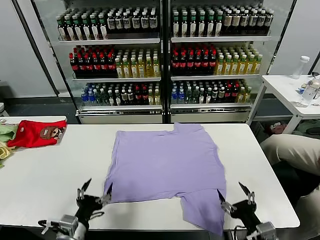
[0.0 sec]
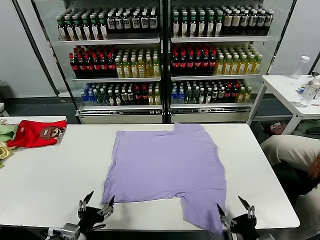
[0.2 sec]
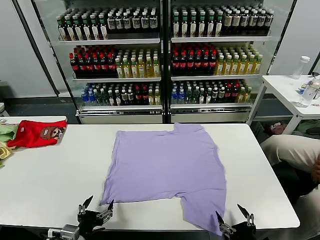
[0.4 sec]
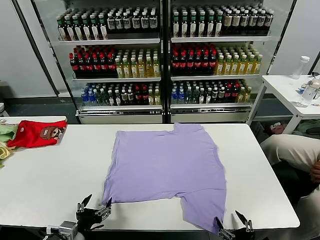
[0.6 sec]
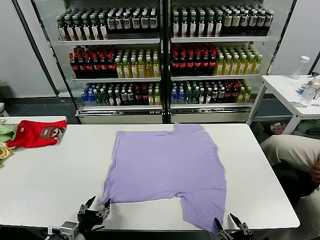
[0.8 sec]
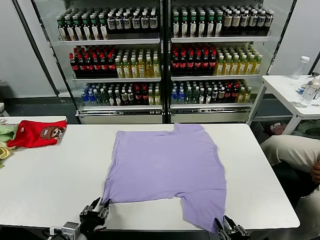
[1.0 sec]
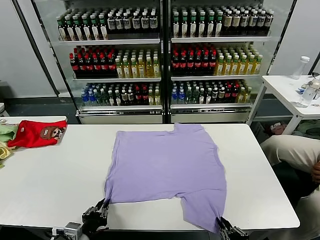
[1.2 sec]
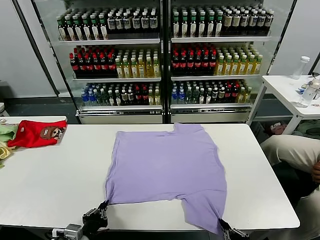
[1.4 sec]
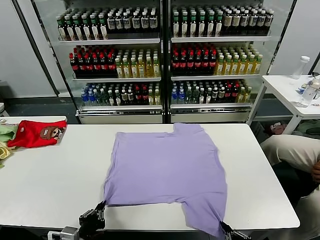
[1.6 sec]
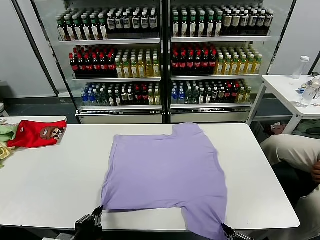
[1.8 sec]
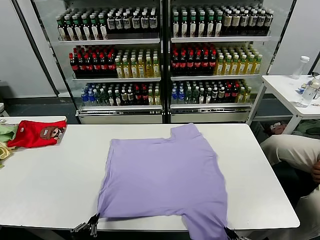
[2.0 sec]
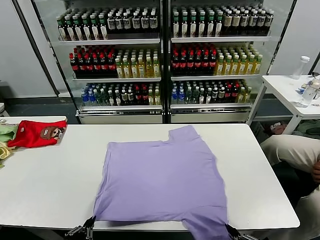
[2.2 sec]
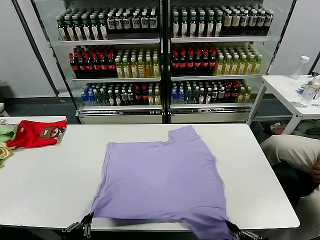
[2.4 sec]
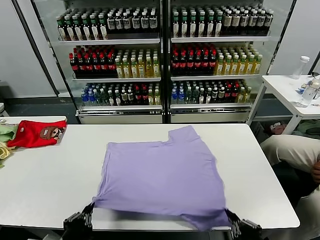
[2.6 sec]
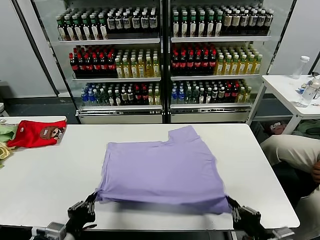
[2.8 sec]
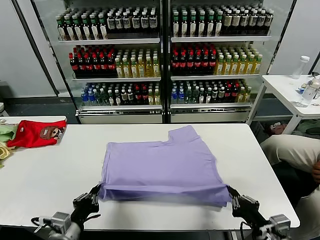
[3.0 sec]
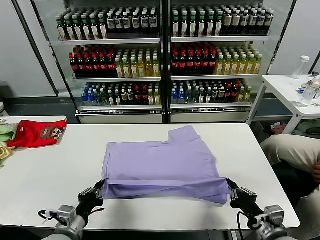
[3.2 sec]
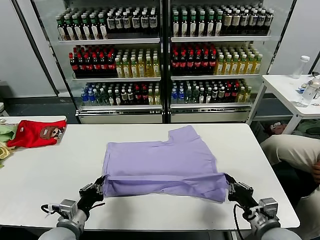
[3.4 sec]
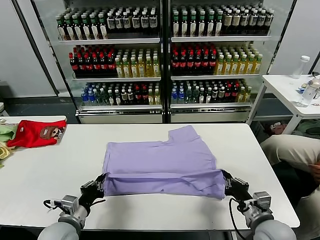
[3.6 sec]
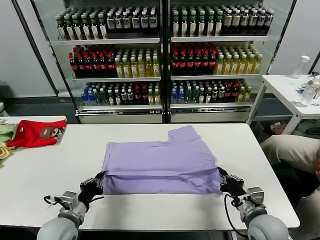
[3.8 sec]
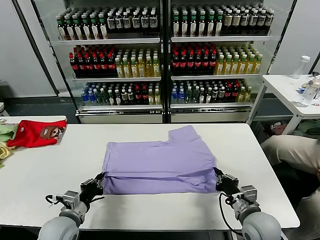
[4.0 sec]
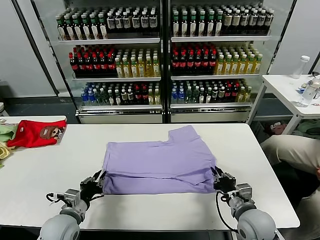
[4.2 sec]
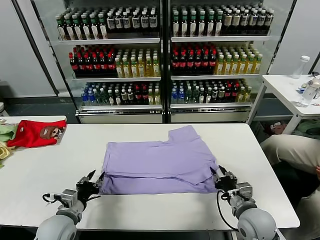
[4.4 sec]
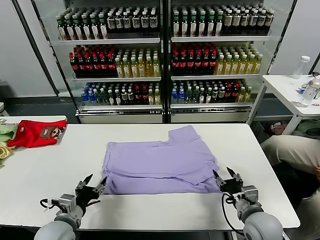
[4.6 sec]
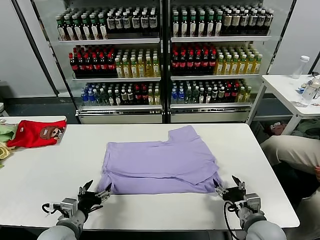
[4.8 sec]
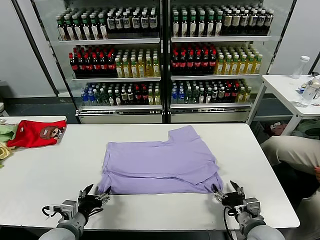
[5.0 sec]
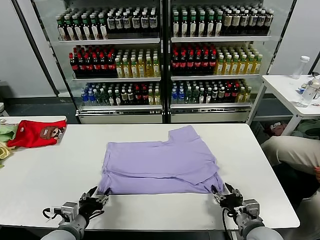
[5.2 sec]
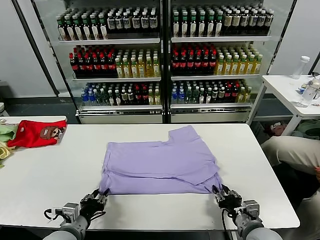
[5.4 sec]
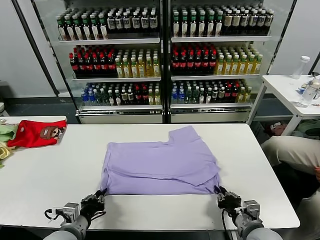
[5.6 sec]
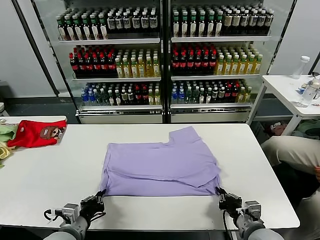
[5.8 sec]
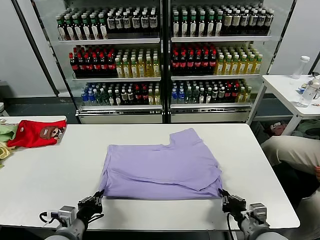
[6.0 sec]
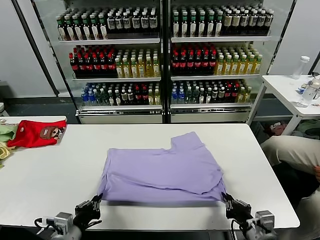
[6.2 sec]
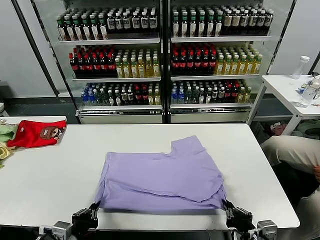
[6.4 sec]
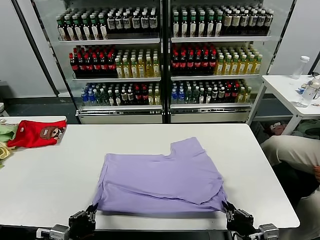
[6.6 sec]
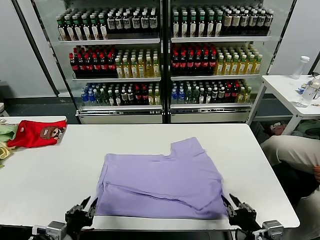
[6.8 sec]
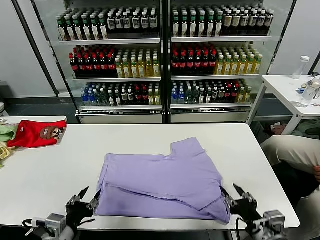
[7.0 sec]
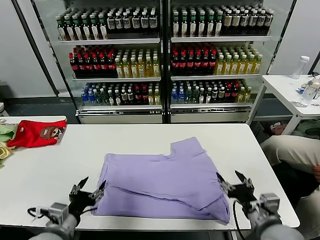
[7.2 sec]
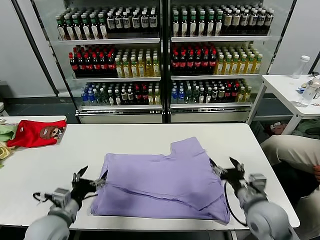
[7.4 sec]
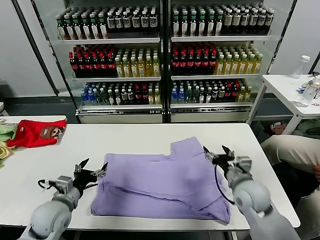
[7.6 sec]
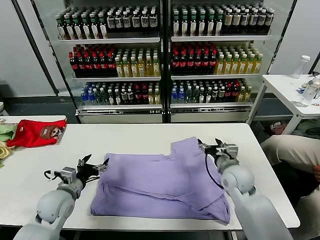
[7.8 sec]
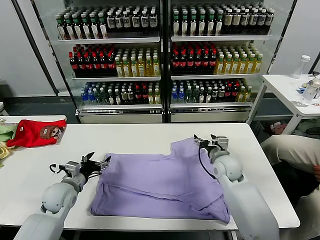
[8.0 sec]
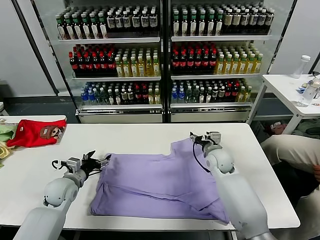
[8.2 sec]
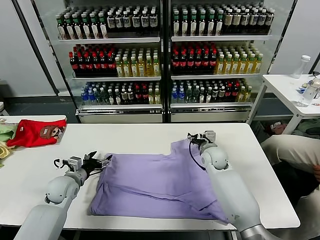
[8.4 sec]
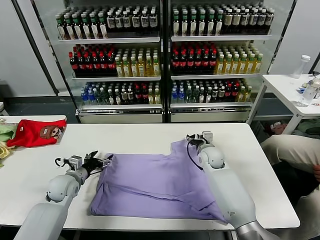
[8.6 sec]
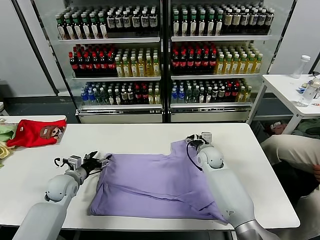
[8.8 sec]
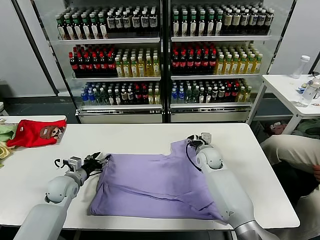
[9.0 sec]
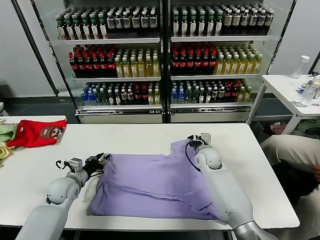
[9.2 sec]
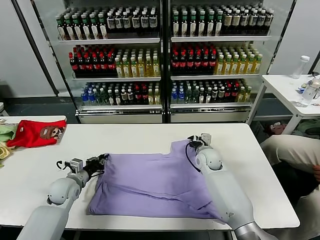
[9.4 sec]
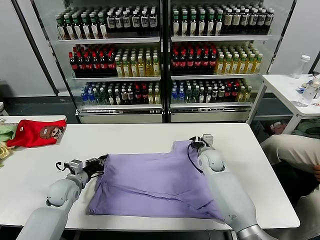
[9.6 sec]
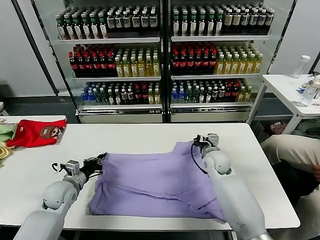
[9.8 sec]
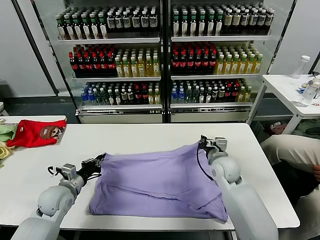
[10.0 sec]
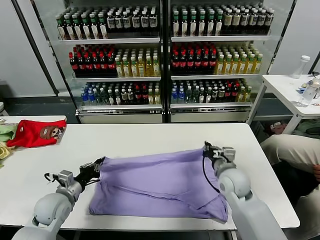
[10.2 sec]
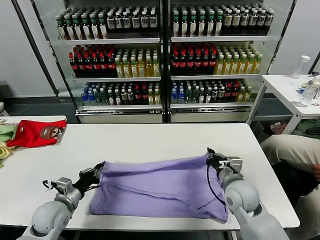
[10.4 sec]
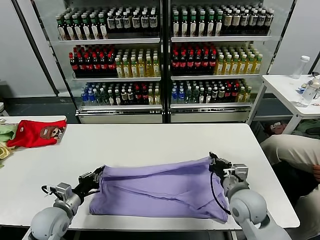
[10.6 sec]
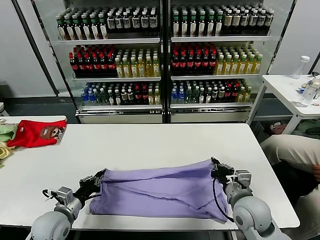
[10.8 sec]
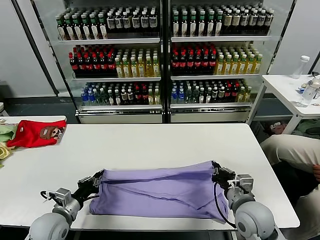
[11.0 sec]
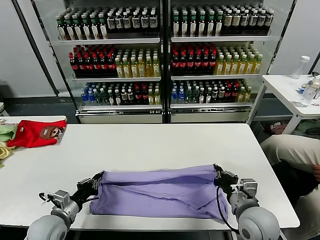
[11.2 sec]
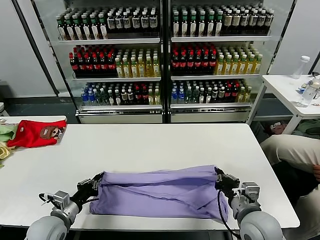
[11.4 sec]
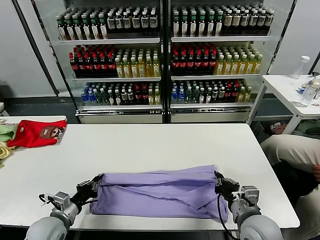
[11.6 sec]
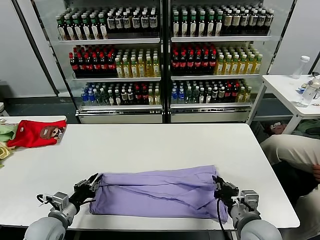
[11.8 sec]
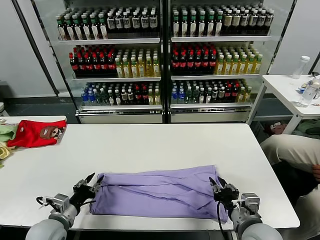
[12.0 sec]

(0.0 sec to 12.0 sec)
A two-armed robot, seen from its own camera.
Task of the whole recording: fold and organize the clothes.
Step, 0.0 sec - 1.2 sec: use both grippers simultaneously to clamp the lower edge of the clothing fabric.
Step, 1.6 sec - 4.6 sec: use both grippers to drag the lower edge of the fabric forward and fold it over the upper edge.
Step, 4.8 sec - 6.8 sec: Drag the clothes downward with both gripper.
Step, 7.0 sec - 9.4 sec: use both grippers simultaneously to clamp the upper edge of the clothing fabric.
1.6 sec - 3.0 sec: The left gripper moves approximately 5 cm. The right gripper moves forward, some 10 cm.
3.0 sec - 4.4 sec: The grippers both shift forward by some 10 cm. The right gripper opens; the left gripper opens its fingers.
4.4 sec - 6.0 sec: The two grippers go about 5 cm backward. The right gripper closes up. Meanwhile the left gripper closes its fingers.
6.0 sec - 7.6 sec: The right gripper moves forward, some 20 cm, and opens its fingers. Meanwhile the left gripper shifts roughly 10 cm forward, and opens its fingers.
7.6 sec - 9.0 sec: The left gripper heads forward, covering some 10 cm. The right gripper goes roughly 15 cm forward and to the left, and closes its fingers.
9.0 sec - 10.4 sec: The left gripper travels backward by roughly 10 cm, and closes its fingers; the right gripper heads backward, covering roughly 20 cm, and closes up.
10.4 sec - 12.0 sec: The left gripper heads backward, covering some 5 cm, and opens its fingers. Meanwhile the right gripper is displaced backward by roughly 10 cm, and opens up.

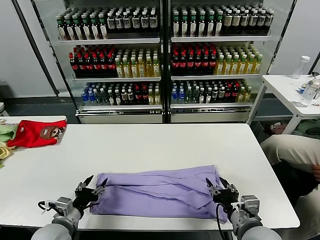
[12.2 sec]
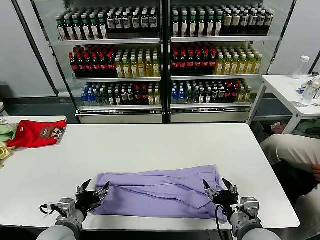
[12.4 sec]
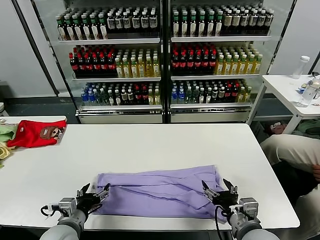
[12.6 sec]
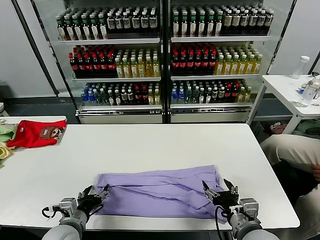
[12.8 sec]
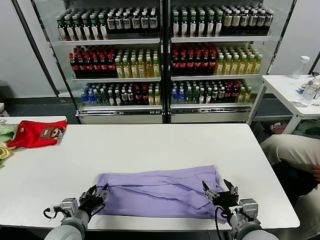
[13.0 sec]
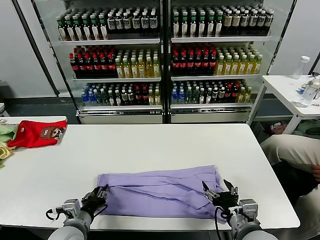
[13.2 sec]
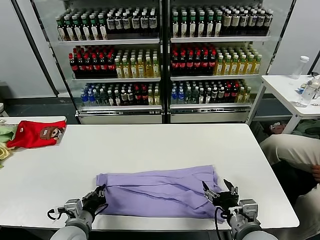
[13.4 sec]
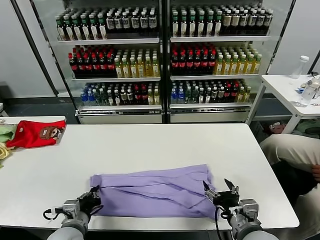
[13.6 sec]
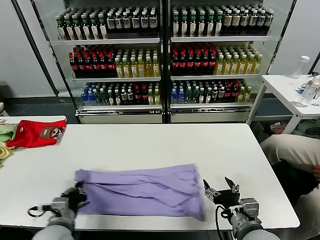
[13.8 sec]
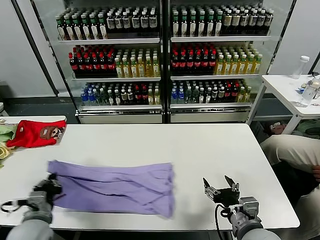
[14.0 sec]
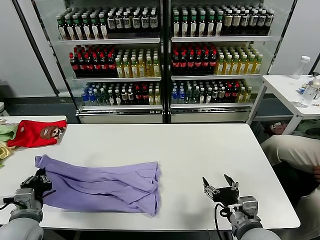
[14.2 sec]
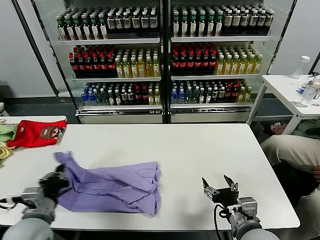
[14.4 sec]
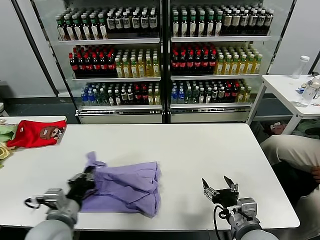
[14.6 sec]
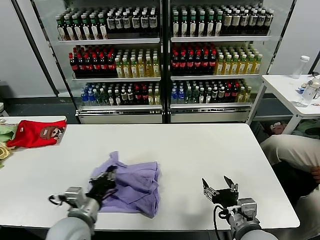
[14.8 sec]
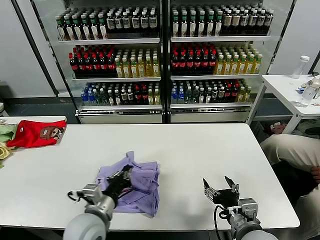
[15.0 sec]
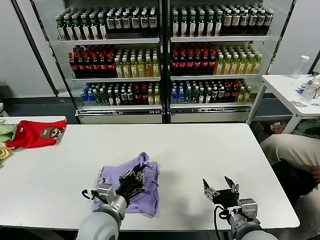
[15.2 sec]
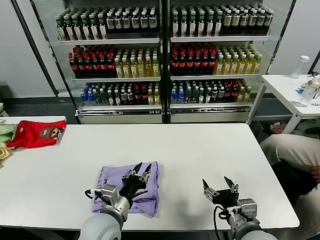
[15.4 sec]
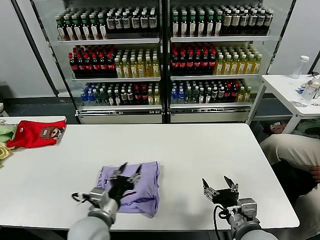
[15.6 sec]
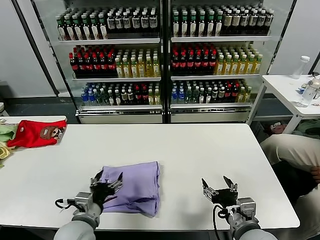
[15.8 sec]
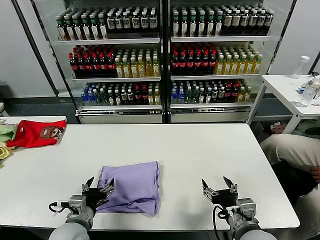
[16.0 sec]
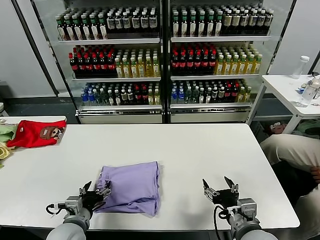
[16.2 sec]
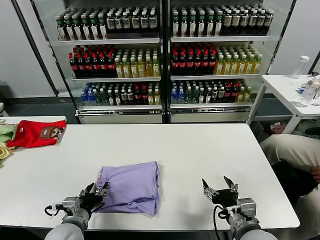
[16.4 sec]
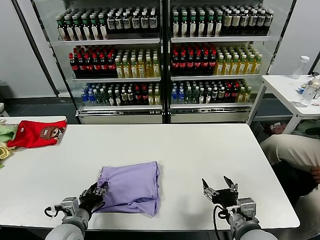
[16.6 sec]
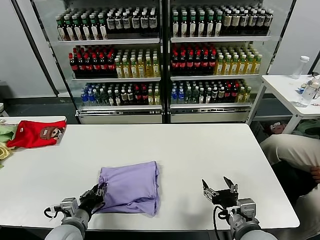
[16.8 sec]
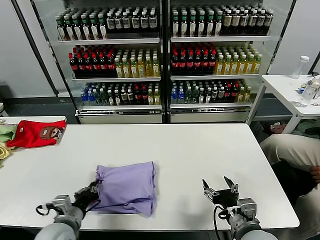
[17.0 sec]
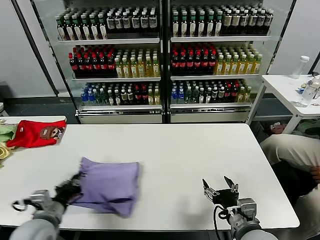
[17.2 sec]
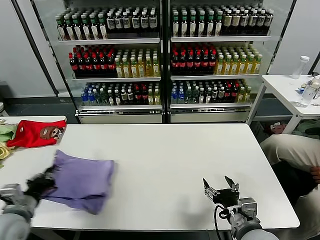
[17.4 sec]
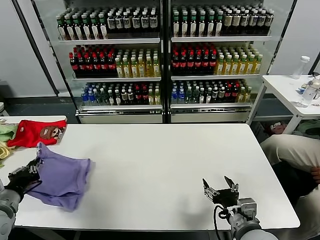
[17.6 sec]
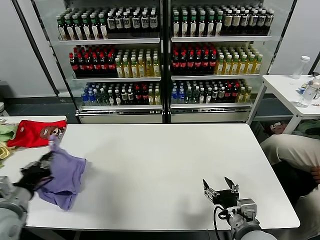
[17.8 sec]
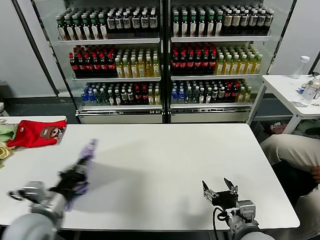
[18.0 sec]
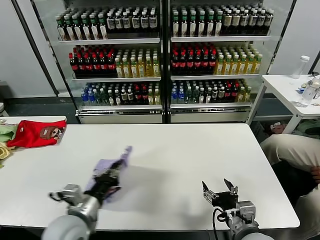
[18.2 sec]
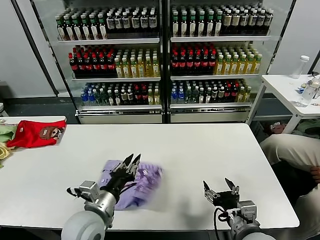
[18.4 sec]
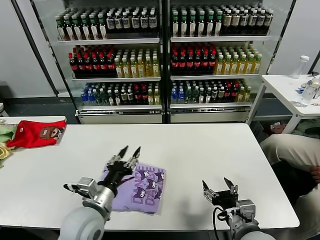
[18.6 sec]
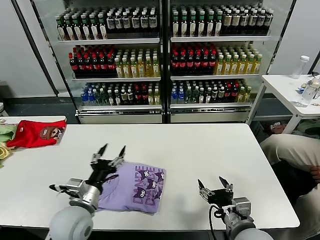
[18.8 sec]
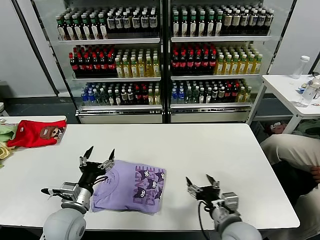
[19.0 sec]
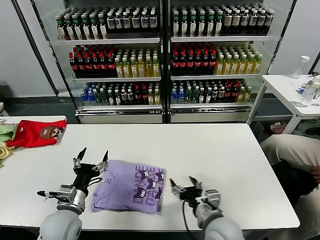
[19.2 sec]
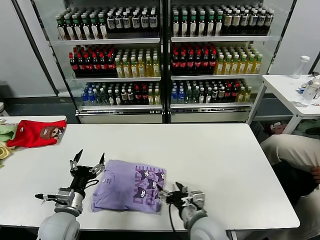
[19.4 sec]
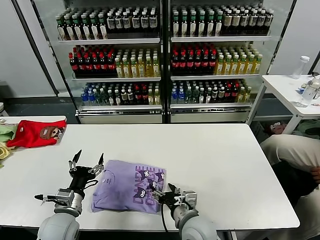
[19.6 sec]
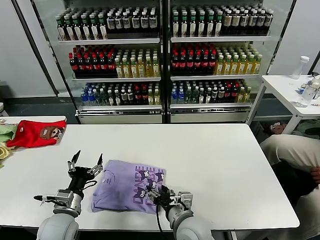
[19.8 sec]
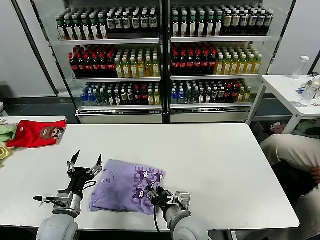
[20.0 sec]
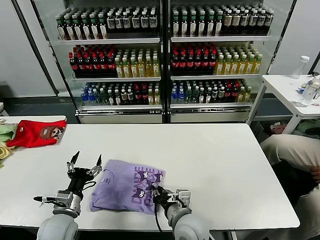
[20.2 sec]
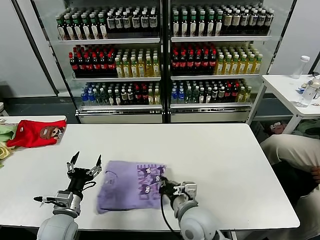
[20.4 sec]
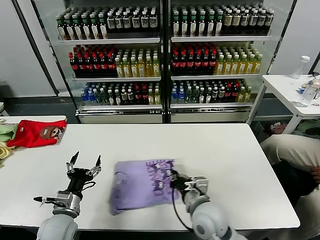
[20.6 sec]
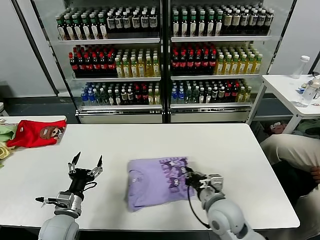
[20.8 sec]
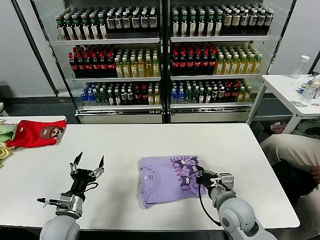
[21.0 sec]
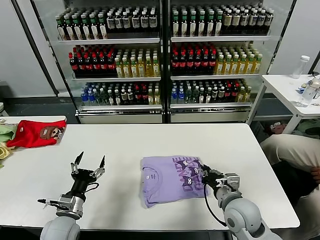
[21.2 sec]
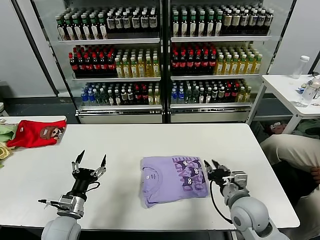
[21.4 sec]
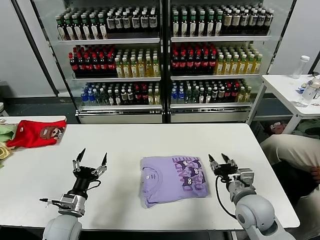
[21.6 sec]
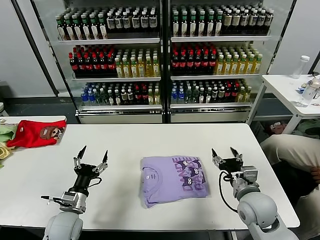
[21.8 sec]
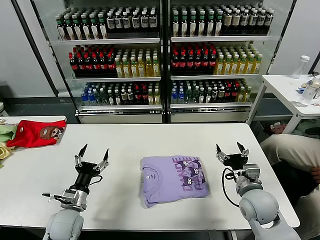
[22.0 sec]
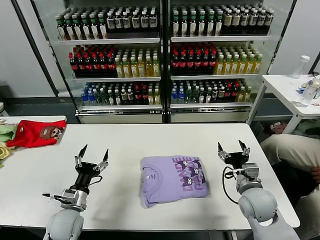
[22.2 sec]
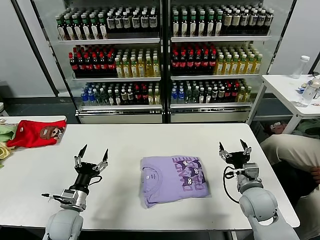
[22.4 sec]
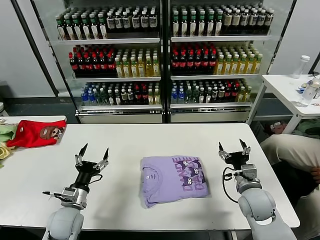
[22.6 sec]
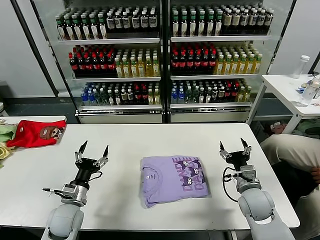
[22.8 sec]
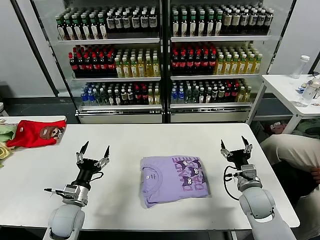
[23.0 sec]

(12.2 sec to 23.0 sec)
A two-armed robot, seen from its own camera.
Task of the whole recording: fold and organize the clothes.
Step, 12.4 sec - 13.4 sec: use the left gripper to clamp the left edge of the fabric.
Step, 13.6 sec - 15.4 sec: use the left gripper to drag the left edge of the fabric to the left and folds it over the right edge.
Step, 15.6 sec - 18.4 sec: Flip the folded clothes over with left gripper.
Step, 18.6 sec - 21.4 sec: Drag the clothes to the center of the table.
12.2 sec - 13.8 sec: The left gripper closes.
13.8 sec - 15.2 sec: The left gripper shifts about 15 cm to the right.
15.2 sec - 16.8 sec: The left gripper goes some 15 cm to the left and downward, and opens, then closes once more.
16.8 sec - 18.4 sec: The left gripper shifts approximately 10 cm upward and to the right.
18.4 sec - 20.0 sec: The left gripper heads to the left and downward, covering about 15 cm, and opens its fingers. The right gripper goes roughly 15 cm to the left, and closes up.
20.0 sec - 21.4 sec: The right gripper is displaced to the right by roughly 15 cm.
21.4 sec - 23.0 sec: The right gripper moves to the right, roughly 5 cm, and opens its fingers.
